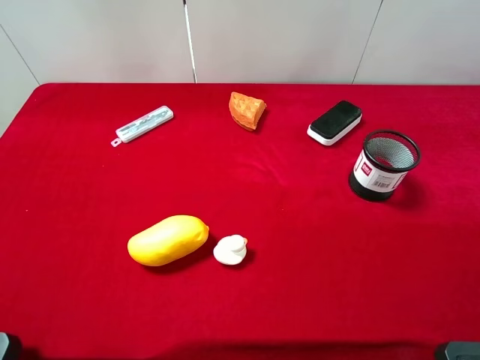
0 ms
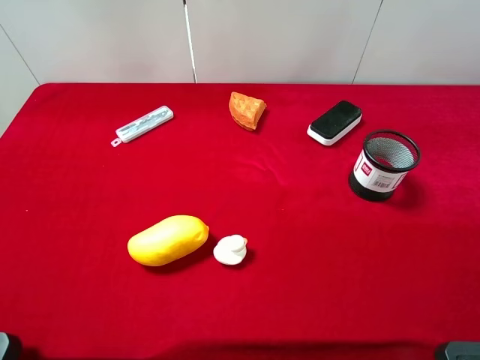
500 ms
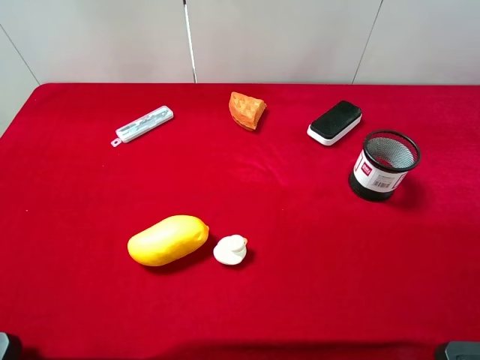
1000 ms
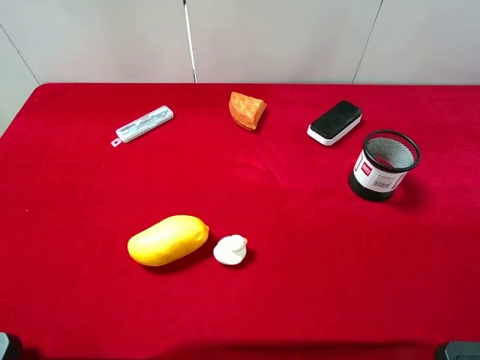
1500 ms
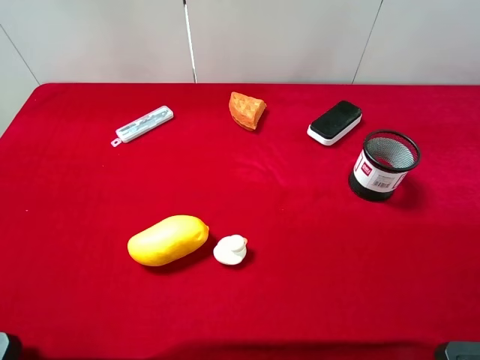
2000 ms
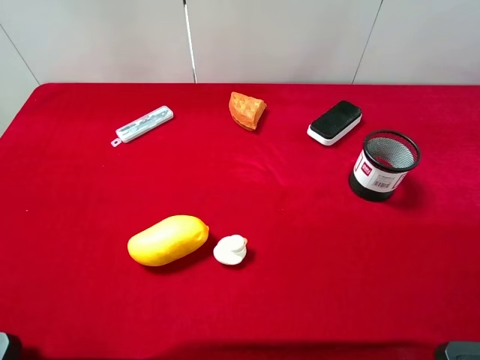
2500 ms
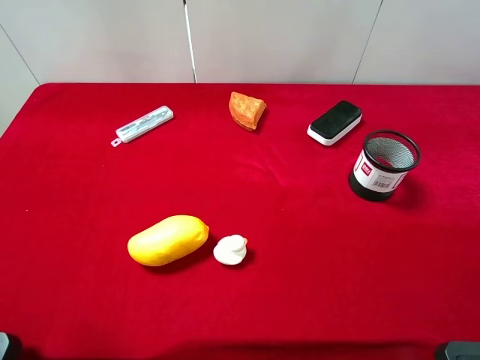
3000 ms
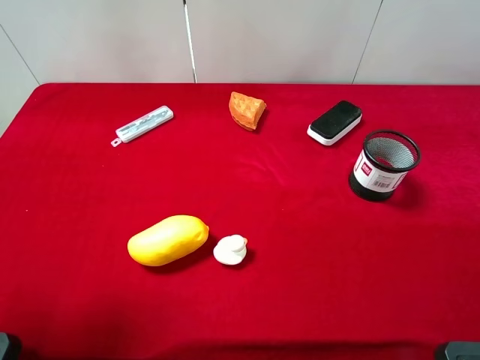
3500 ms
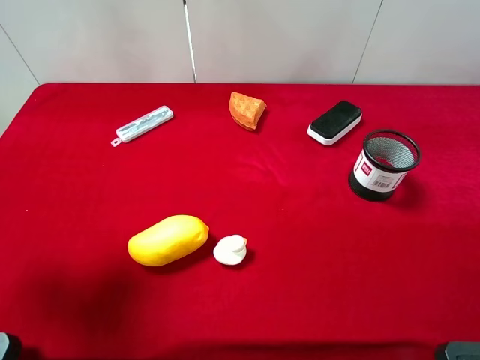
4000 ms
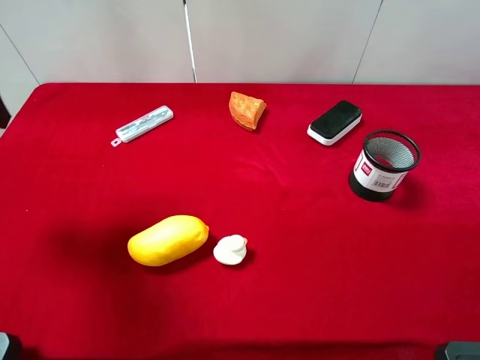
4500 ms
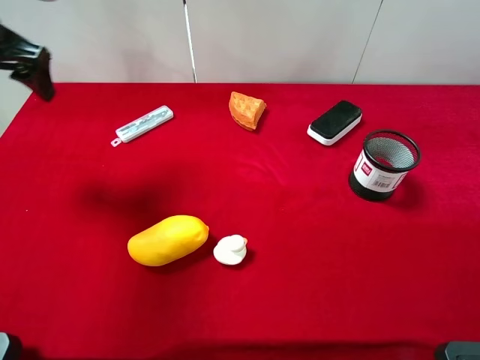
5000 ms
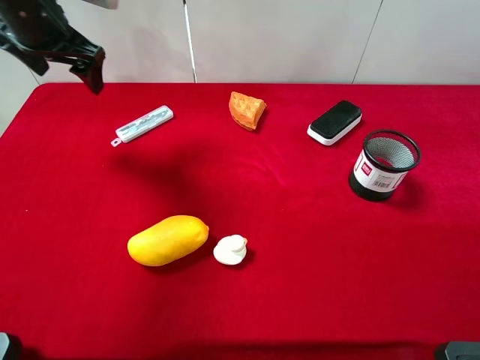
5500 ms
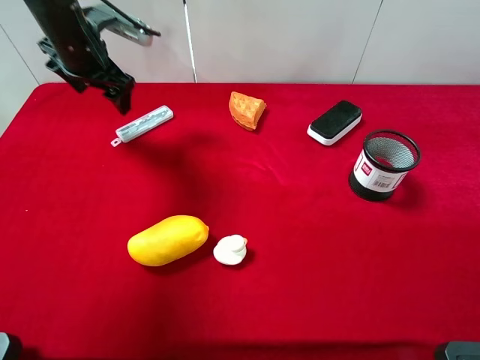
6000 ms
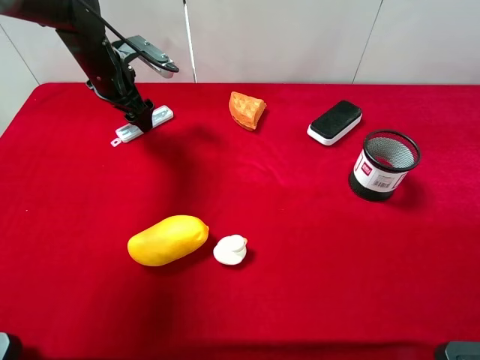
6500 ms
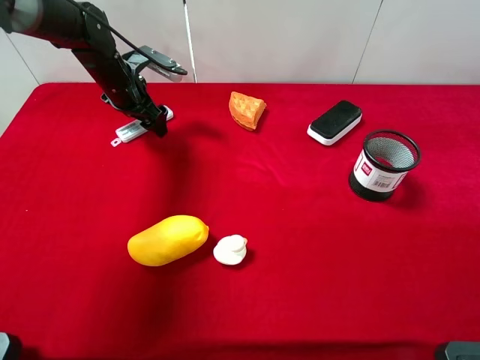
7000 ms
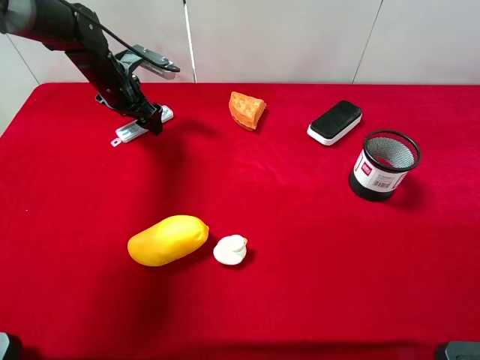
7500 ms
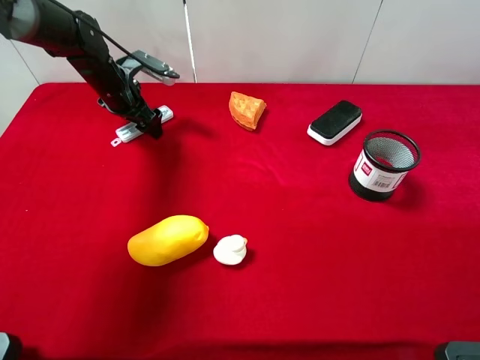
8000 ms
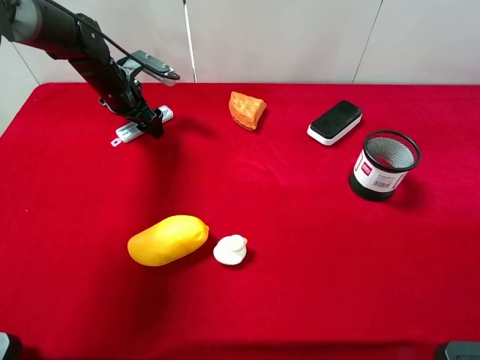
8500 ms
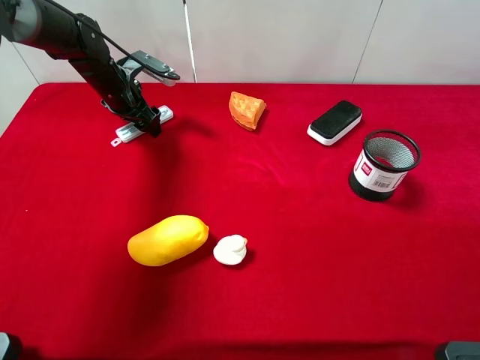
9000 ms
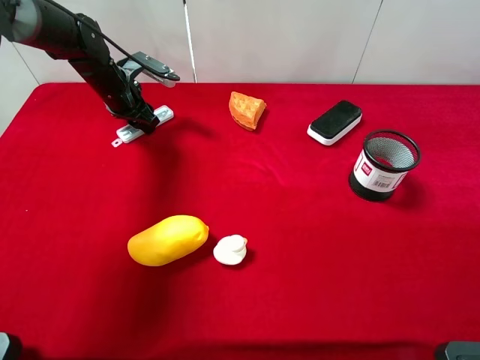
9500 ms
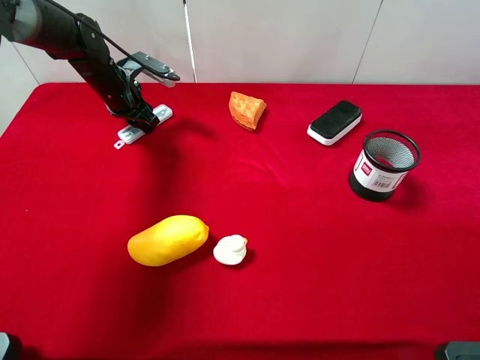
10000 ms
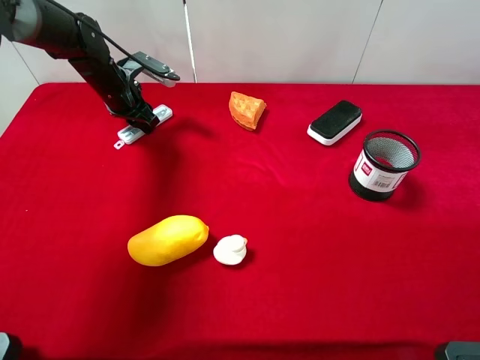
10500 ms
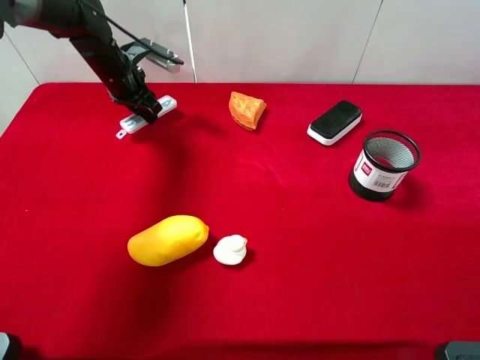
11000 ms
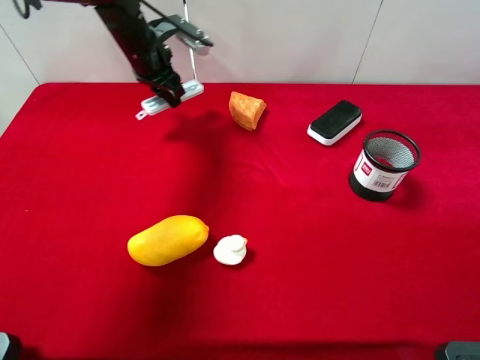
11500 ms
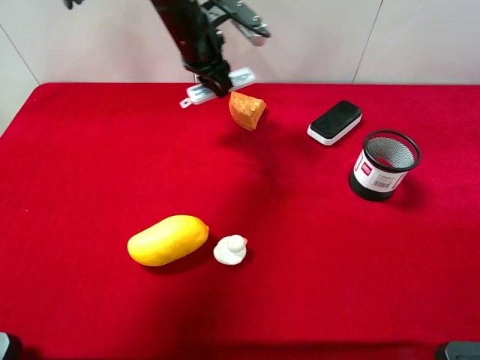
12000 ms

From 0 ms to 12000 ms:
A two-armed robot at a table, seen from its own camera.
Task of the whole recording: the gripper move the object.
Step, from 0 ms to 10000 ms: Grasp the compasses with the left gripper.
From 2000 ms to 4000 ms: The left gripper shifts some 15 cm forward.
From 4000 ms to 6000 ms: The left gripper travels forward and downward by roughly 25 cm.
From 6000 ms to 8000 ms: The left gripper travels downward by roughly 10 cm.
From 8000 ms to 10000 ms: The left gripper closes its fingers.
From 10000 ms to 12000 ms: The left gripper heads to the right and upward, covering some 20 cm.

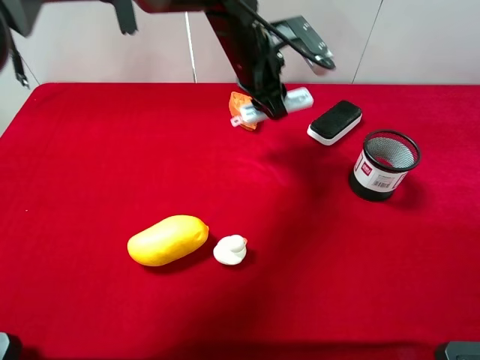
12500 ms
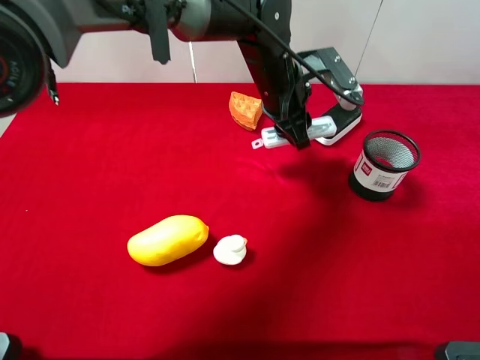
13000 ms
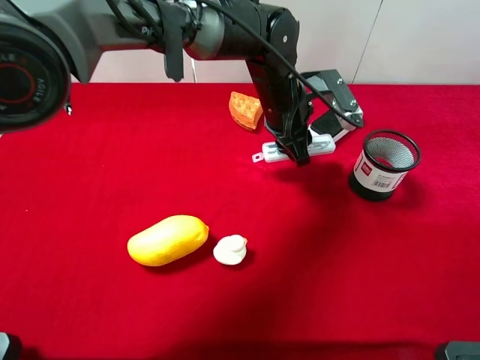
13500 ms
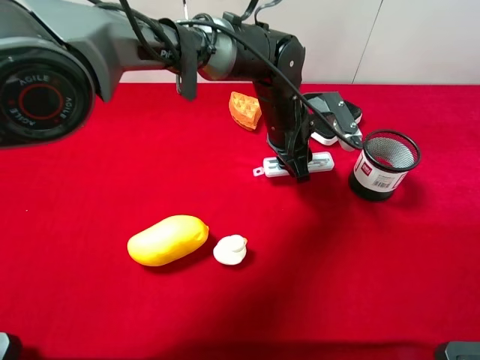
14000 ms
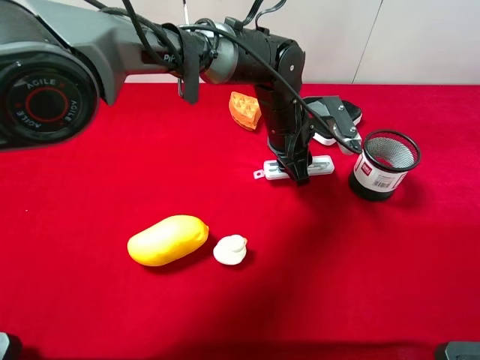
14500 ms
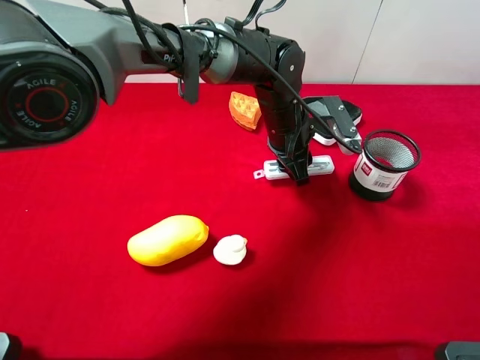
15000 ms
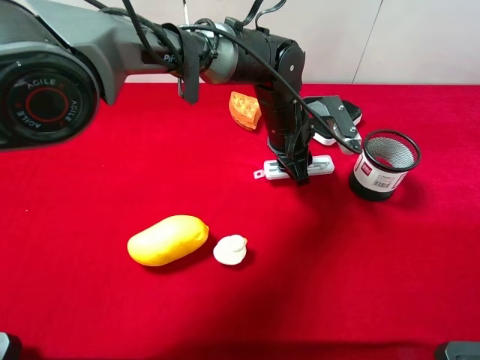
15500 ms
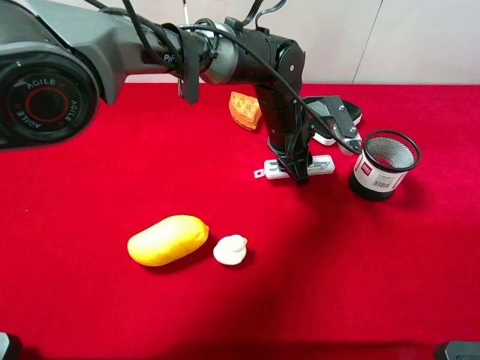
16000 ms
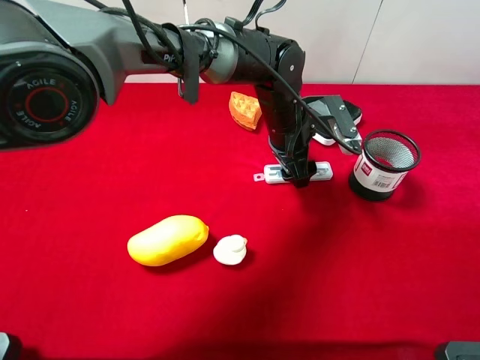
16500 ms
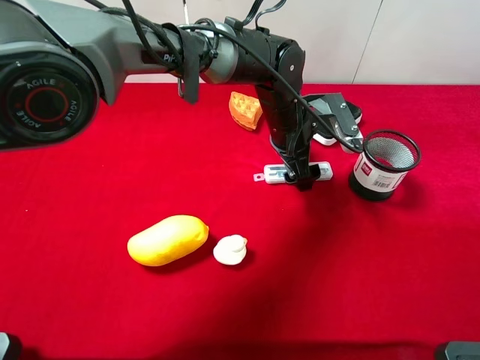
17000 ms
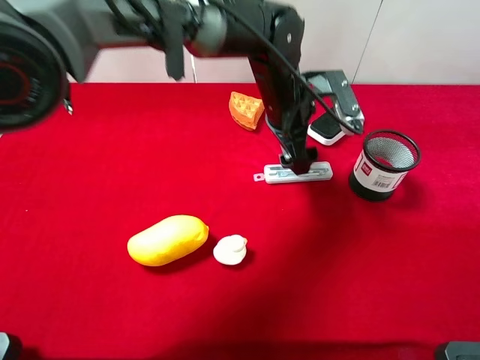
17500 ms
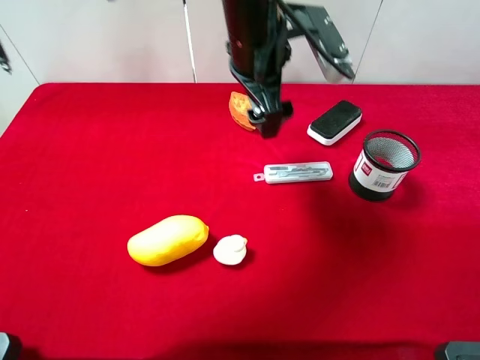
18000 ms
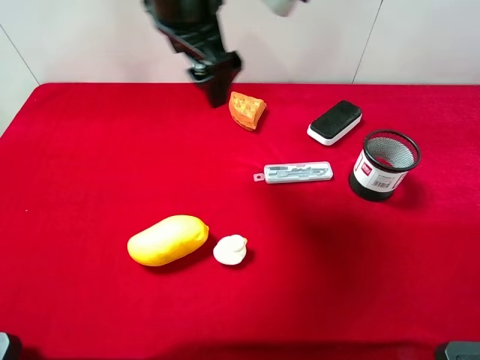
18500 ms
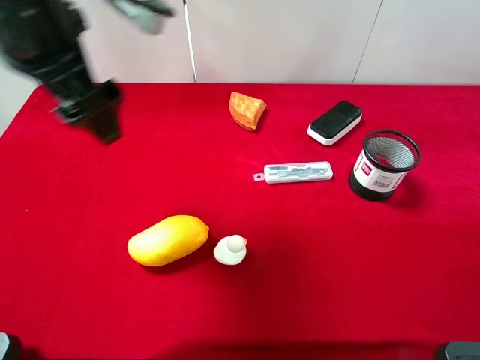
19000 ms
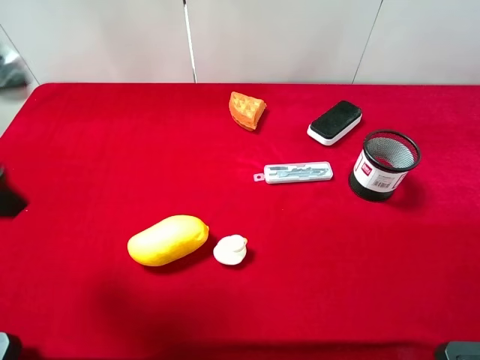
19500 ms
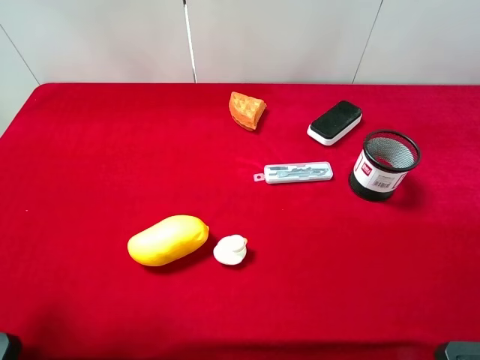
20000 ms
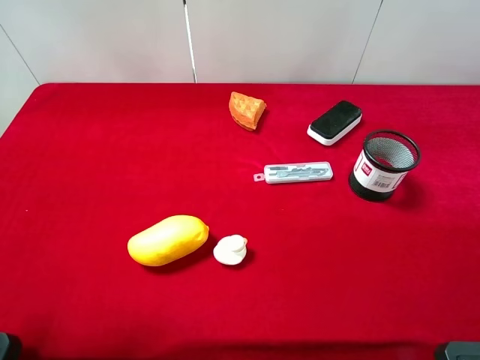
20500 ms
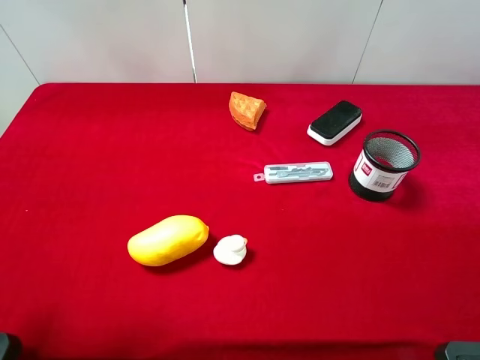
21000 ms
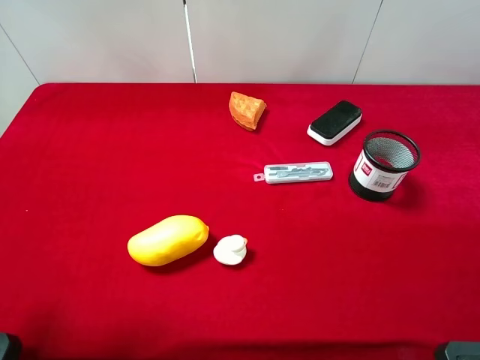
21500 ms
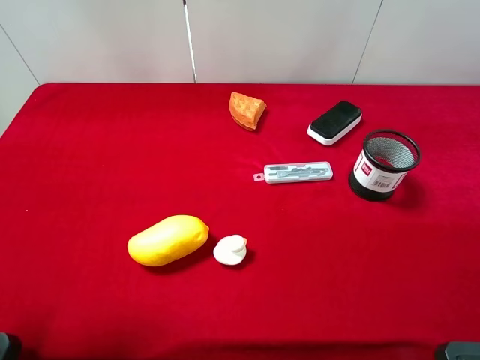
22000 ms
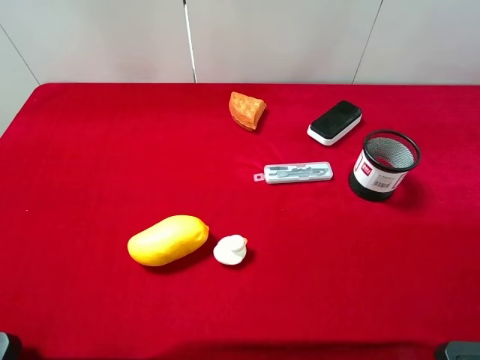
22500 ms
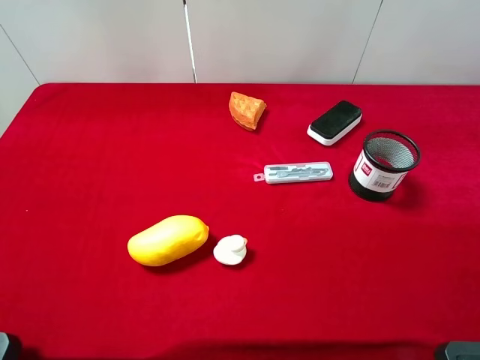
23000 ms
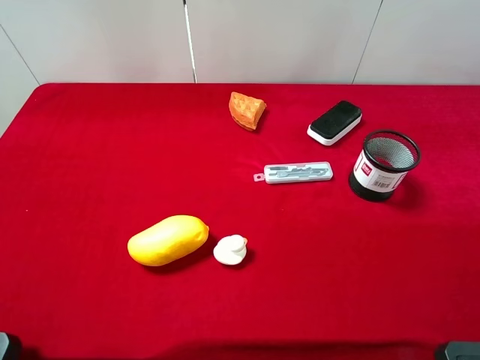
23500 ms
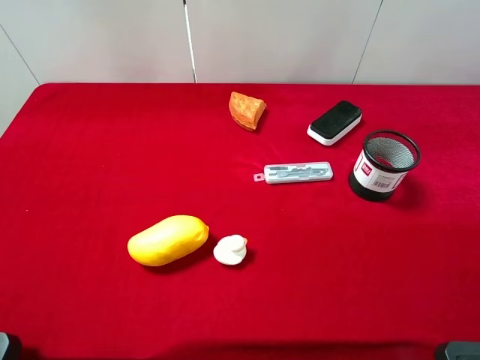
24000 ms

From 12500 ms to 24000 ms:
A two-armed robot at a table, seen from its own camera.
Task of the whole recording: the gripper move the object.
Step, from 12500 ms to 17500 ms: Place the compasses on the table with the left gripper.
From 12500 ms to 14500 ms: The left gripper shifts roughly 5 cm downward.
From 16500 ms to 18500 ms: The left gripper goes about 25 cm upward and to the left, and opens its fingers.
From 18500 ms to 20000 ms: The left gripper travels backward and to the left by roughly 30 cm.

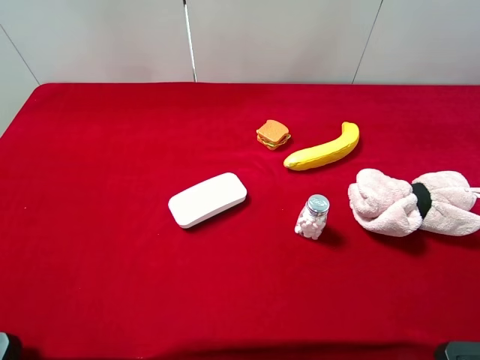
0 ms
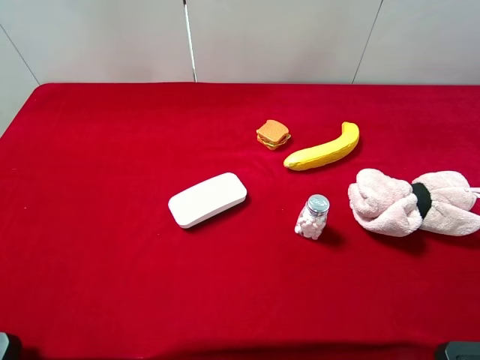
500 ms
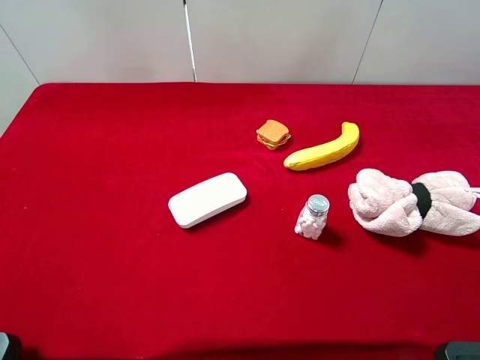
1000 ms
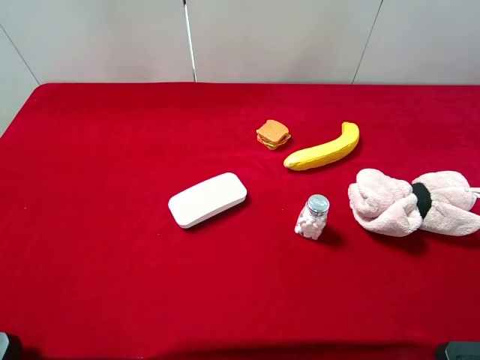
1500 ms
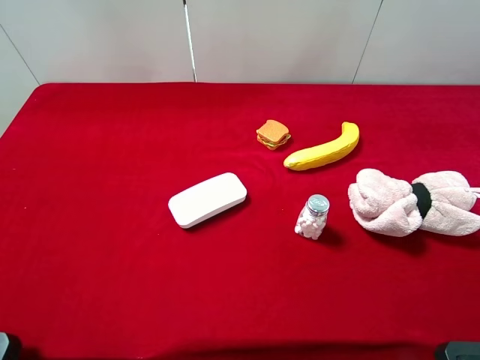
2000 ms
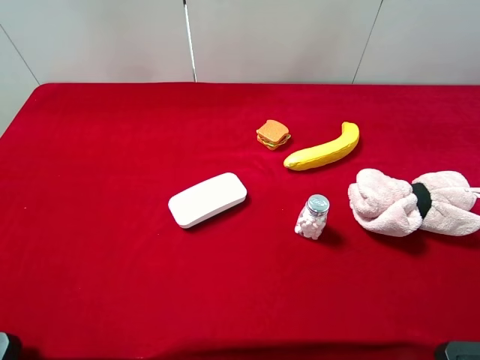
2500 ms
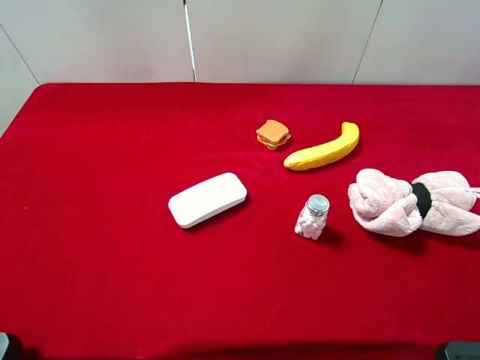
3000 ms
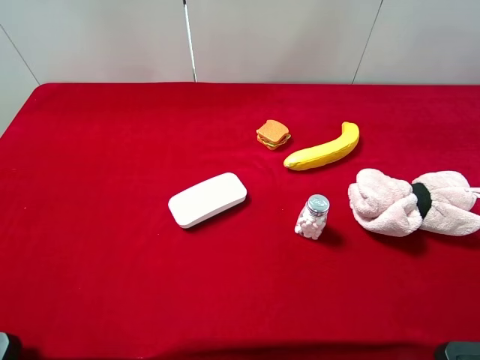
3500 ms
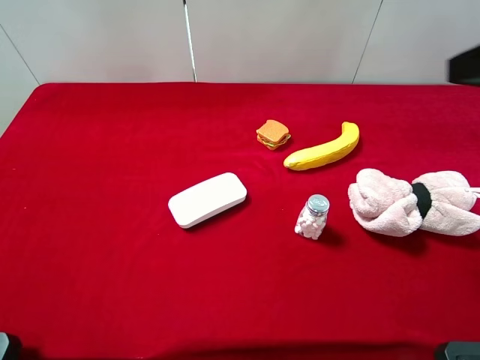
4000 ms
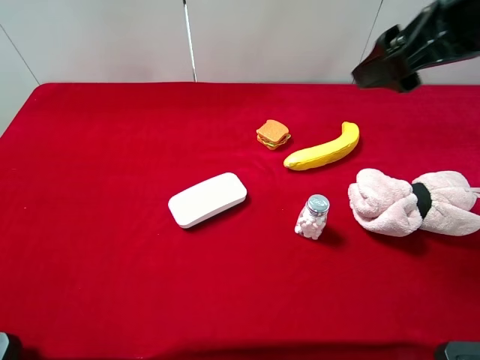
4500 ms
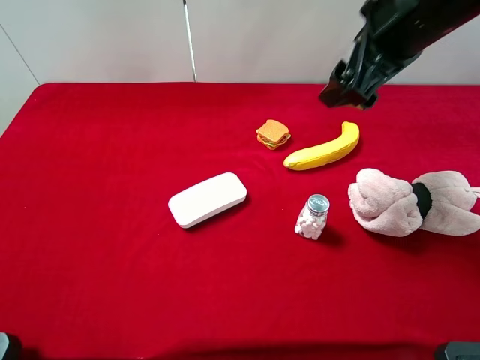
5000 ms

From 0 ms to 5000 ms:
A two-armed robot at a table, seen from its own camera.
Task of the whole recording: the gripper move the object.
From 0 ms to 2500 ms: Both grippers stay about where they are.
From 2500 ms to 5000 ms: The right gripper is displaced forward and to the left by some 30 cm.
